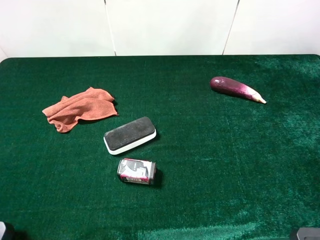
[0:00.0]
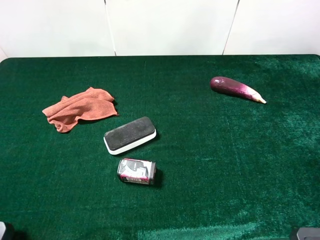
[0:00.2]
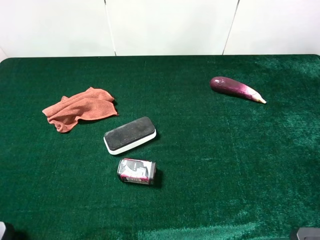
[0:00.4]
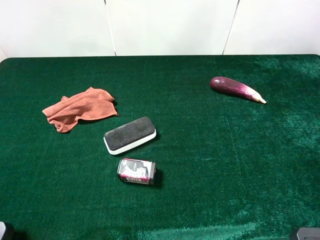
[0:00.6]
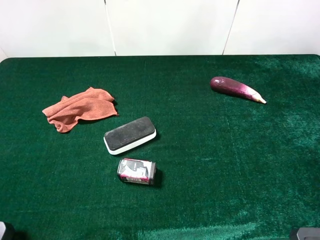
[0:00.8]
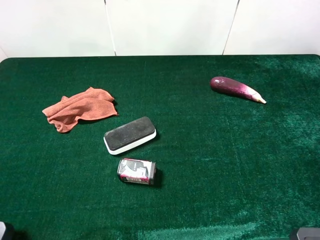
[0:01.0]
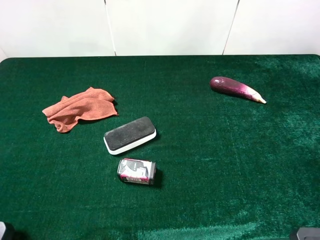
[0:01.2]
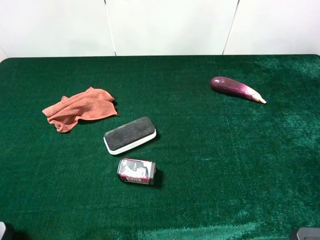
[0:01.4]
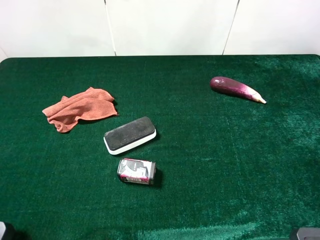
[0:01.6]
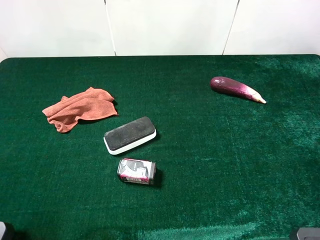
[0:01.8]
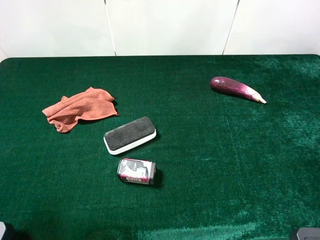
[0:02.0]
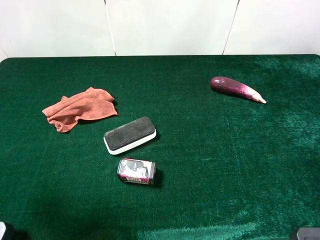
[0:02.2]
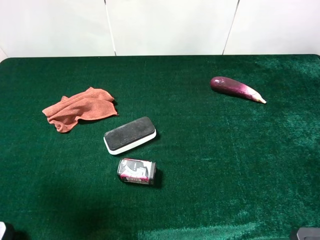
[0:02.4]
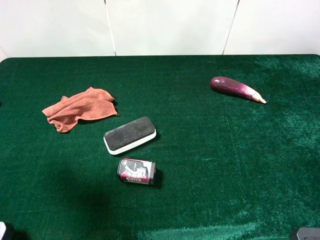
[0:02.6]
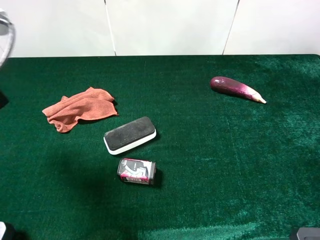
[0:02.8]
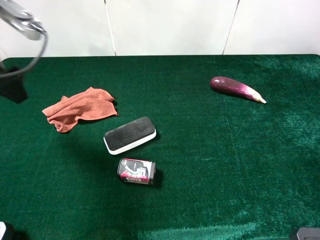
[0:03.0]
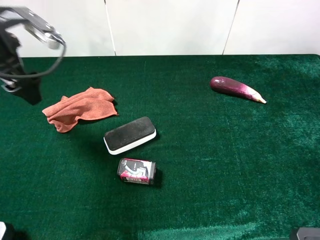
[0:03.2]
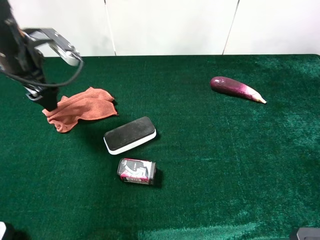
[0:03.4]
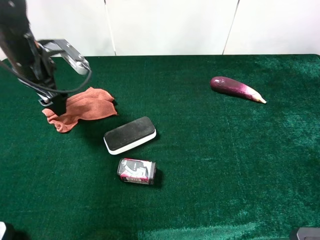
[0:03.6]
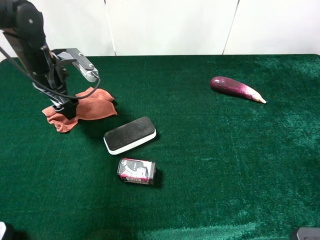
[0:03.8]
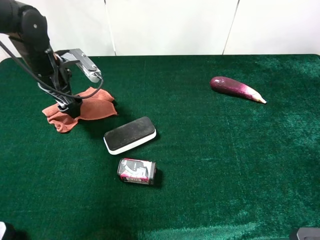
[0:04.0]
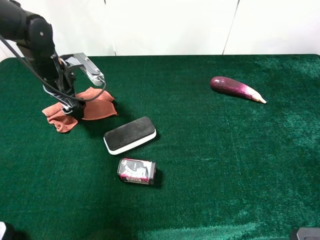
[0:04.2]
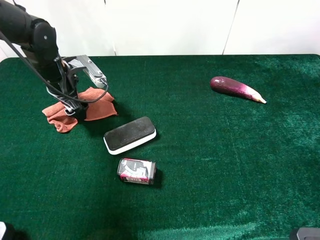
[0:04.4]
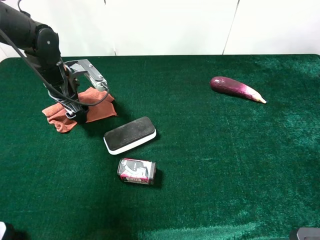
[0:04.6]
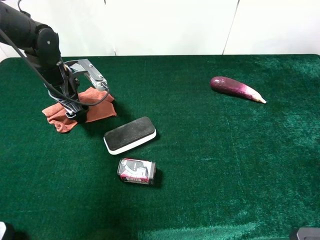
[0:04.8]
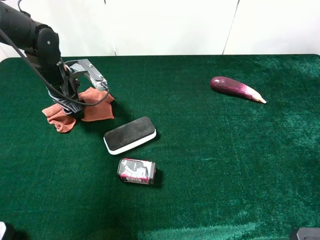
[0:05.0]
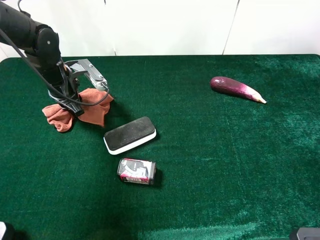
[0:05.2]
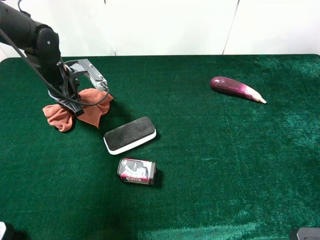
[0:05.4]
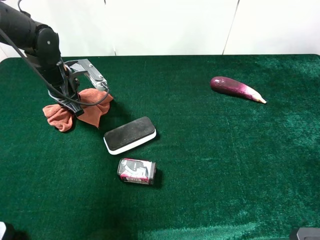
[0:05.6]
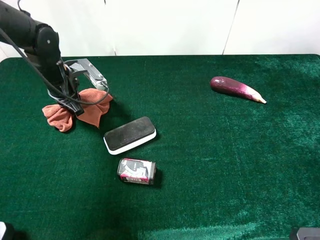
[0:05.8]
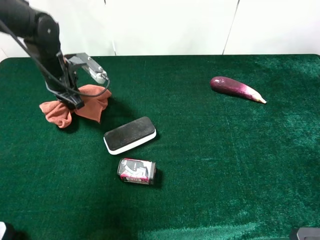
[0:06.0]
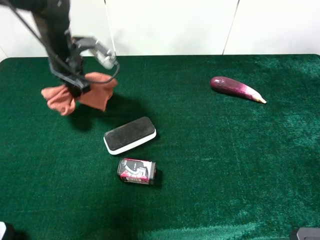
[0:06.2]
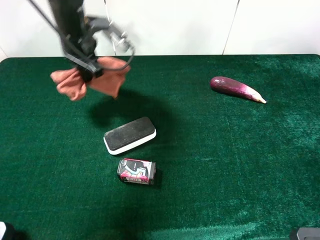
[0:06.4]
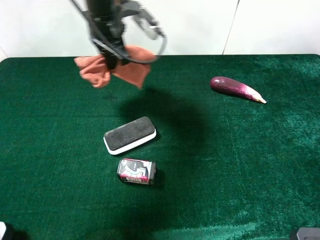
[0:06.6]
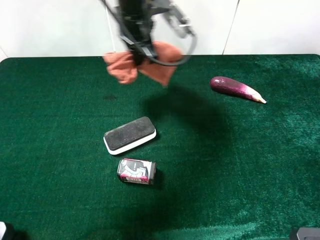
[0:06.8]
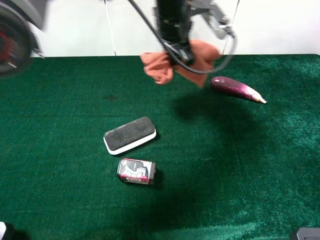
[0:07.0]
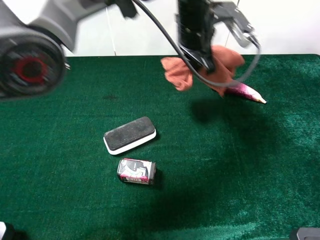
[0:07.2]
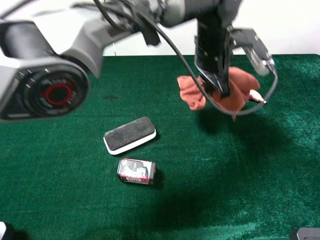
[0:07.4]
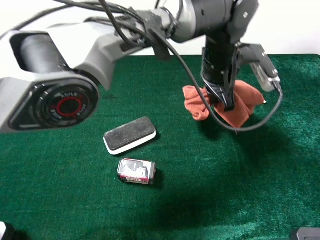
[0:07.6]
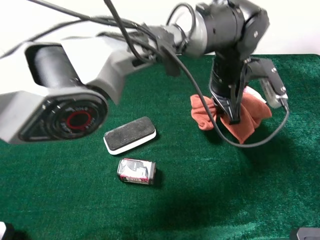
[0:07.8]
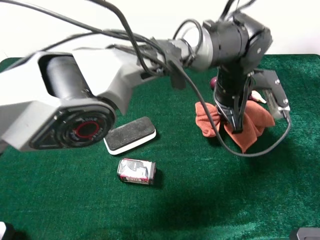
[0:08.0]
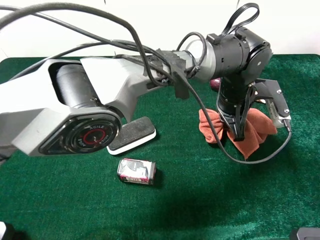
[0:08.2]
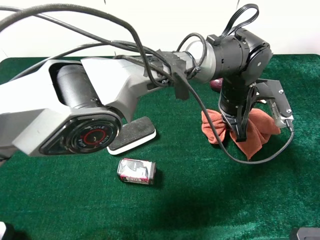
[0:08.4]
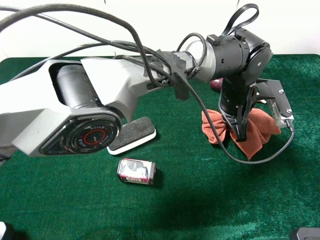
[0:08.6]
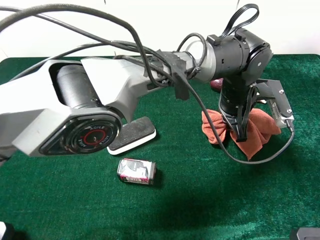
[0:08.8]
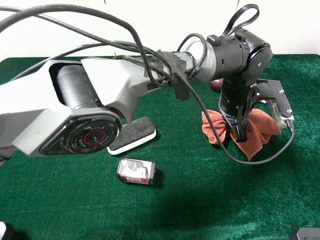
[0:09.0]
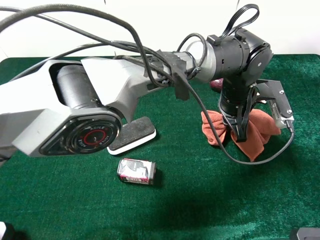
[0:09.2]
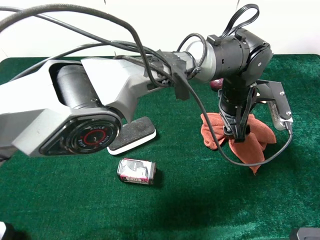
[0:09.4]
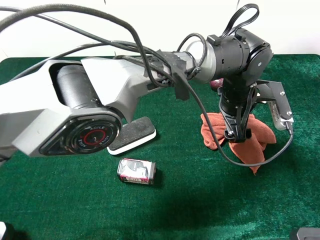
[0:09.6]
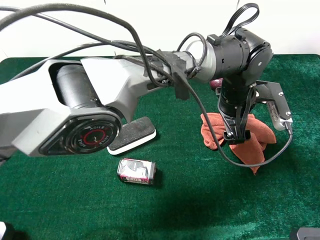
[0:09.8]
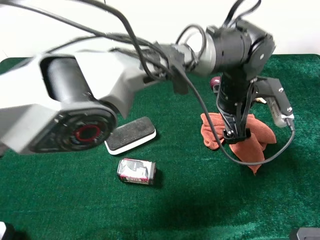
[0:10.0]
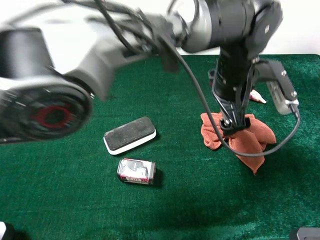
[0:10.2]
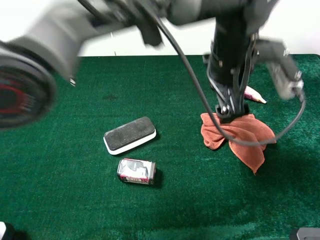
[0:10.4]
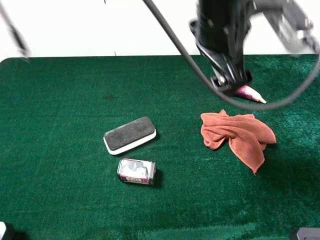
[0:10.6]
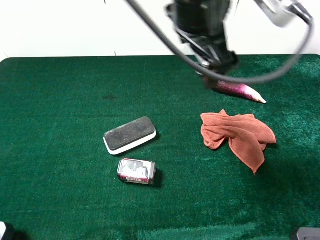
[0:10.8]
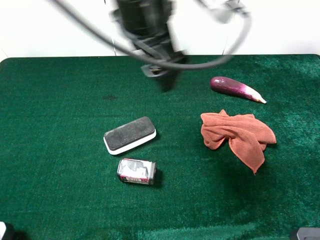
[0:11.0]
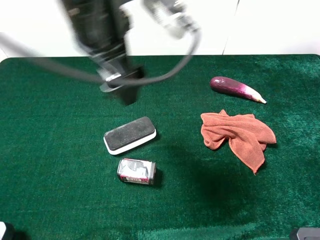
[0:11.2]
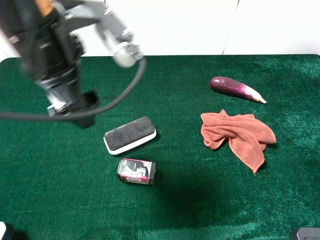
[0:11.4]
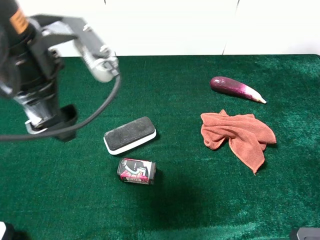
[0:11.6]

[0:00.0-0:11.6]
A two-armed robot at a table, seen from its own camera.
Task of the whole recording: the gripper move the object.
Step, 0.0 to 5.6 s: Grasp the pink towel with the left gripper.
Step, 5.8 to 9.8 s: Place the pink towel on the table with the left gripper.
1.4 to 2.8 s: The left gripper goes roughly 20 cm forward.
2.8 to 4.4 s: The left gripper goes approximately 25 cm downward and forward.
4.4 to 5.8 s: The left gripper closes.
5.8 to 7.2 s: The left gripper travels to the right and upward by roughly 30 cm.
7.2 to 8.8 s: The left gripper moves to the right, downward and backward, roughly 20 cm.
8.8 to 10.2 s: The left gripper opens.
10.2 to 11.6 s: The left gripper is displaced to the left and upward by approximately 30 cm.

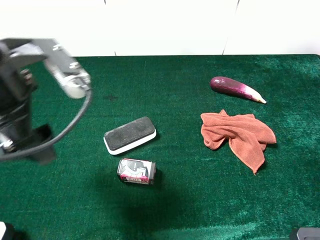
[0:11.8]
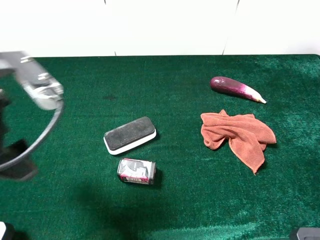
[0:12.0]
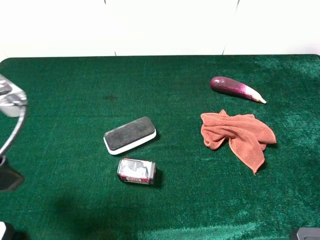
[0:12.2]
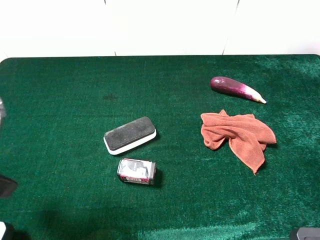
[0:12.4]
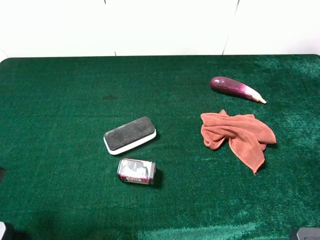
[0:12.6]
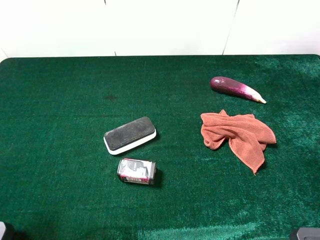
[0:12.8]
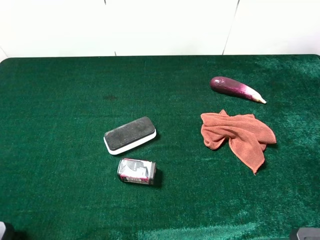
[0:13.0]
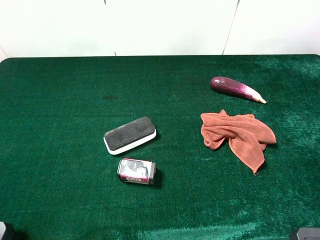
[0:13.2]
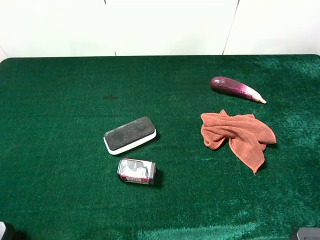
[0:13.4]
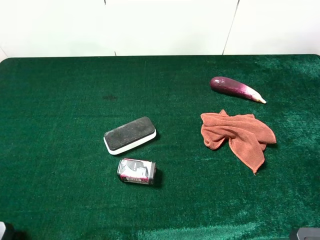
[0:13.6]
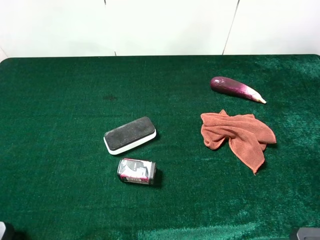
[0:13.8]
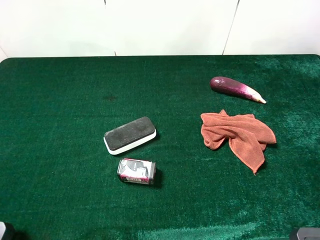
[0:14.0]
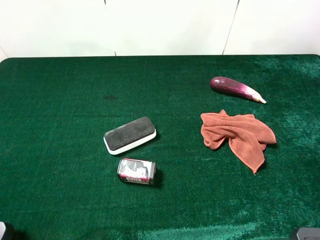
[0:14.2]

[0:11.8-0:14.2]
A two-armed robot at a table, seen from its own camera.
Task of the whole recording: the gripper move the object.
11.8 to 13.0 s: The left gripper goes about 20 cm backward and to the left.

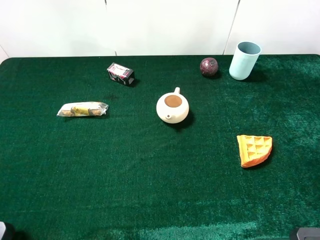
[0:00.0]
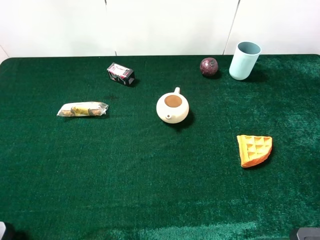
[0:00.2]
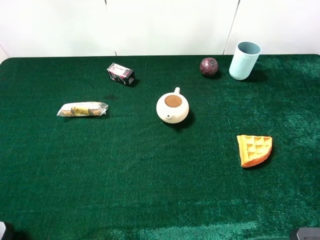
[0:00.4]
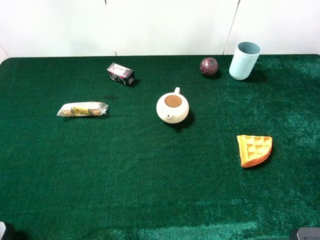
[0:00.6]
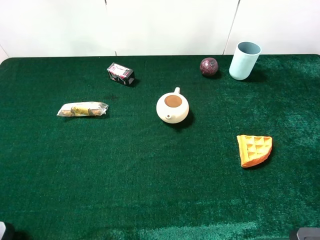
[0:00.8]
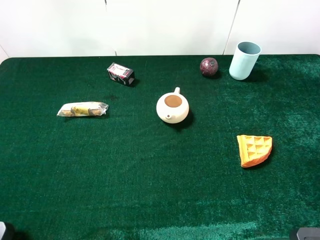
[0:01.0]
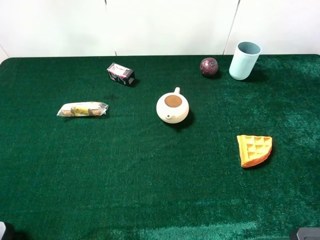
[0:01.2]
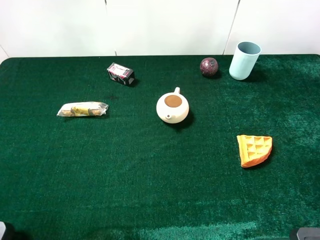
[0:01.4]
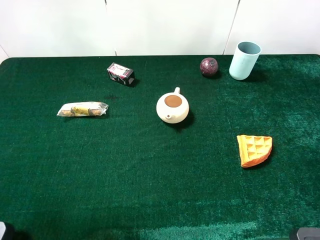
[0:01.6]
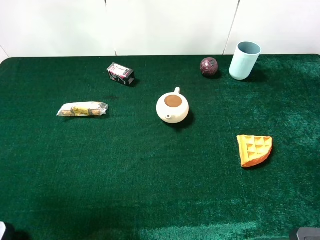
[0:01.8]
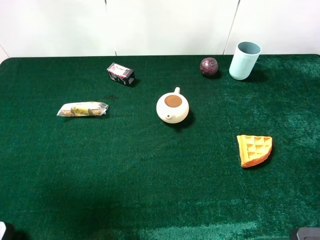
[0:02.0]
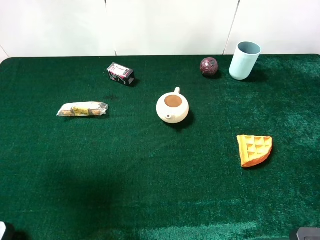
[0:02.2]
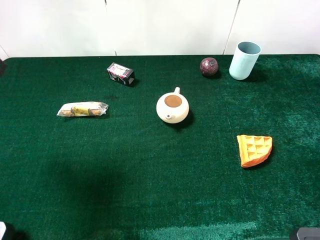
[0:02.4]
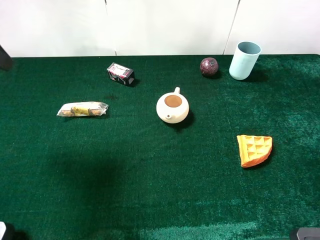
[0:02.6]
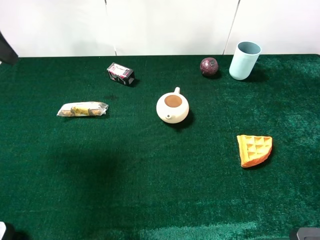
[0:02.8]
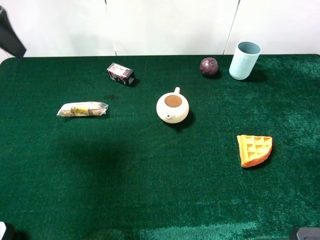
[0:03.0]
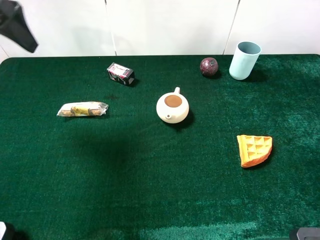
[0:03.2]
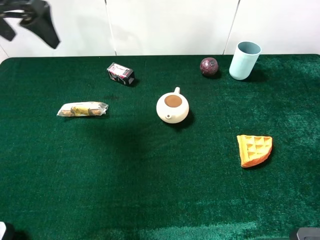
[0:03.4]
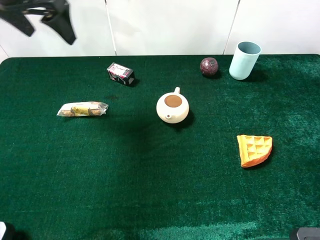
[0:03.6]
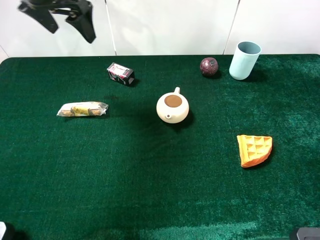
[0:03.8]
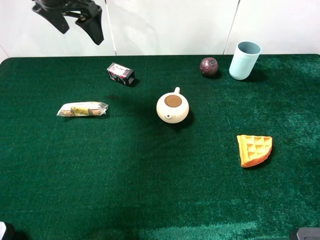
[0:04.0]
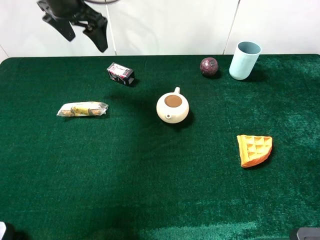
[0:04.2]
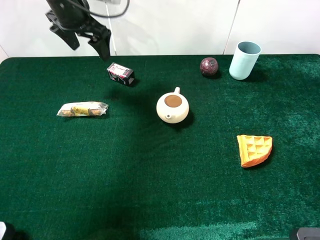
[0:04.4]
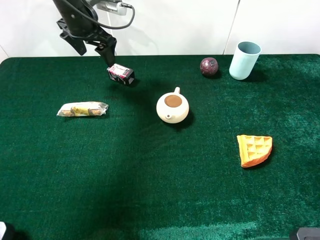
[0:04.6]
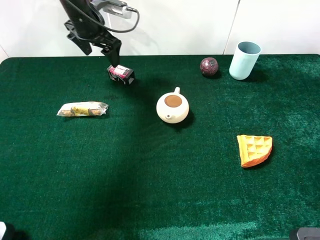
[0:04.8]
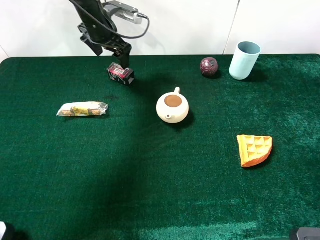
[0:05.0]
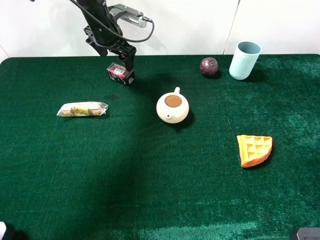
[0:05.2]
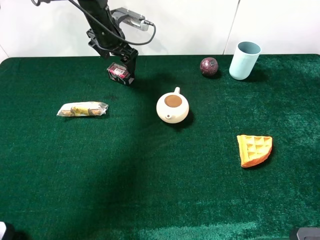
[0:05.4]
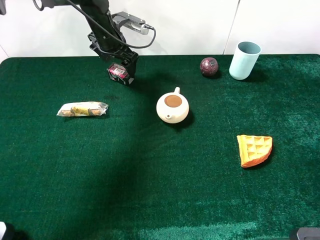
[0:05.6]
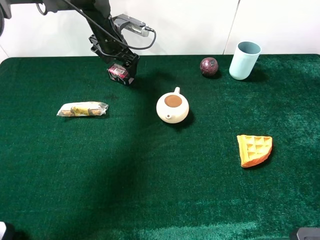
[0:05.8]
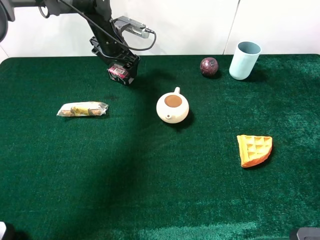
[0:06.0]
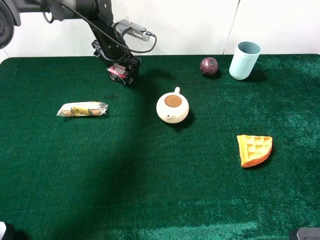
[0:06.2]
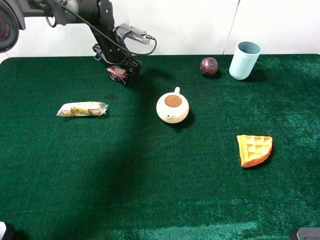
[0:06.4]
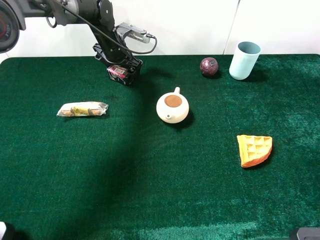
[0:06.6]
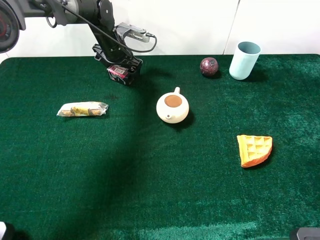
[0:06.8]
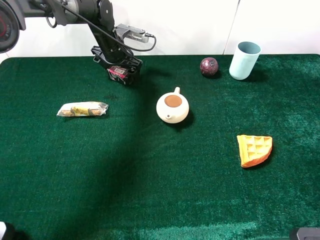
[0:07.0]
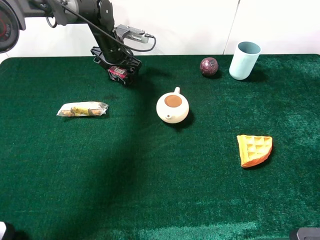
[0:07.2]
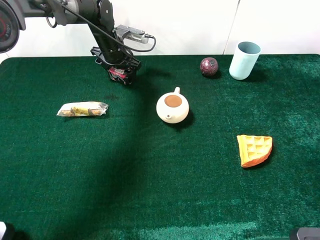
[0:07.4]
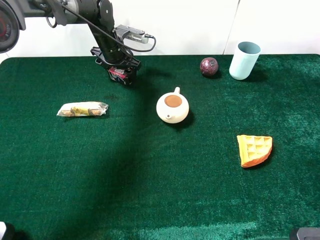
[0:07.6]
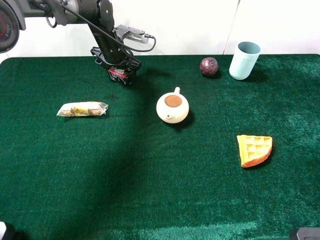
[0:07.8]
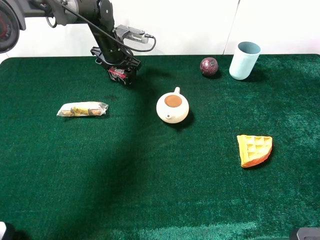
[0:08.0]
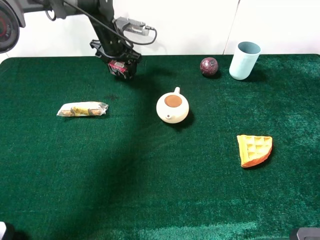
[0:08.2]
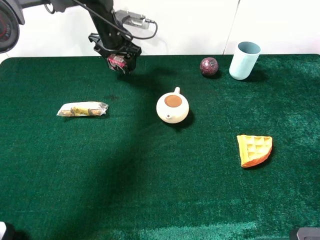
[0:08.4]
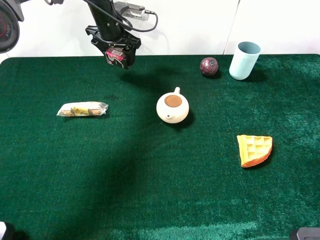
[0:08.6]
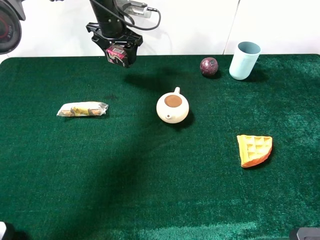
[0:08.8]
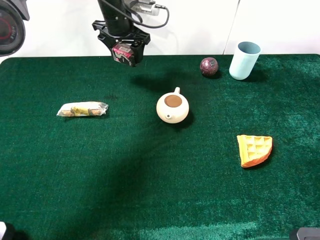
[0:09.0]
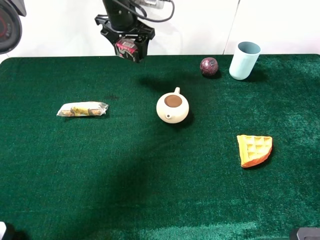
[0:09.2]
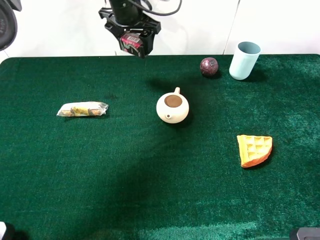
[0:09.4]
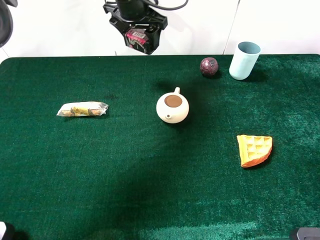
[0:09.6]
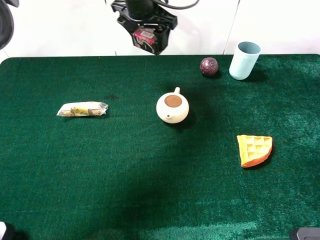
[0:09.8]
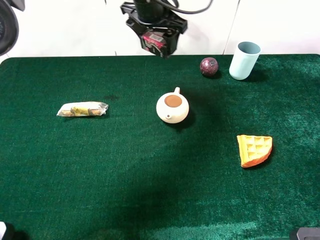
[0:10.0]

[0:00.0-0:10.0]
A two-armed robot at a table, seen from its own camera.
Task of the whole recording: the gripper move the object.
Step, 0.0 to 7.6 s: Grasp the hard facial cleanser with the left gripper.
1.4 to 2.8 s: The left gripper shifts about 20 cm forward.
2.8 to 4.2 s: The left gripper goes approximately 20 cm forward and to the right.
4.2 to 5.8 s: The left gripper goes roughly 15 cm downward, forward and to the right.
5.8 to 7.2 s: The left gripper closes up.
7.2 to 8.6 s: The left gripper shifts approximately 5 cm upward, and closes.
8.6 to 10.0 s: The left gripper is displaced to the right, upward and backward by approximately 15 cm.
